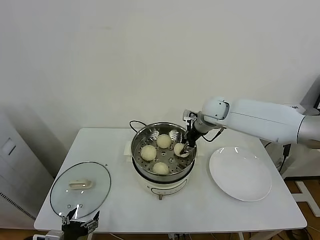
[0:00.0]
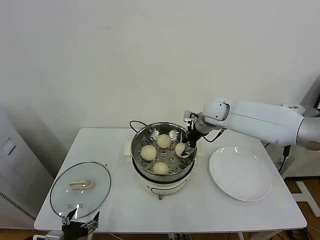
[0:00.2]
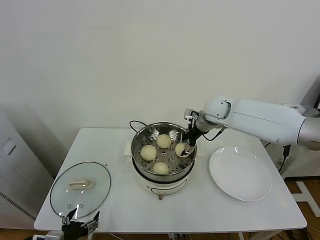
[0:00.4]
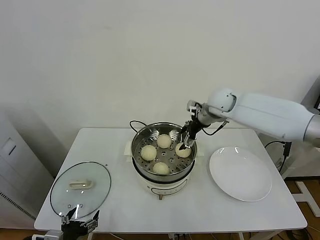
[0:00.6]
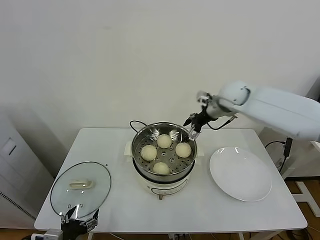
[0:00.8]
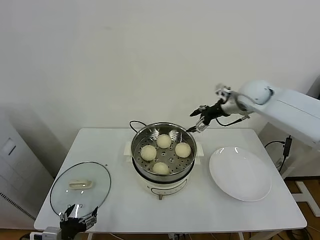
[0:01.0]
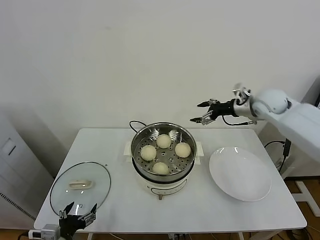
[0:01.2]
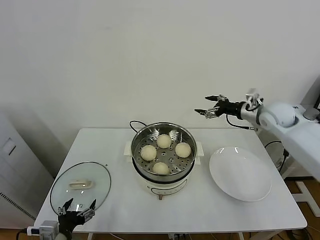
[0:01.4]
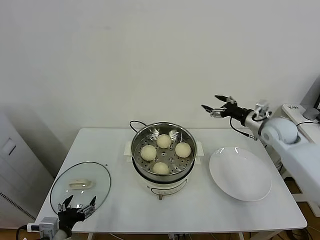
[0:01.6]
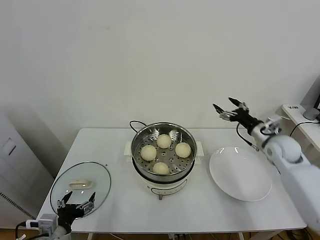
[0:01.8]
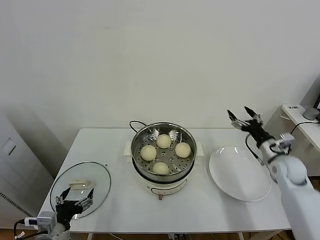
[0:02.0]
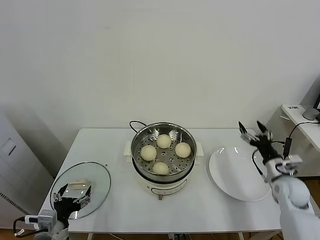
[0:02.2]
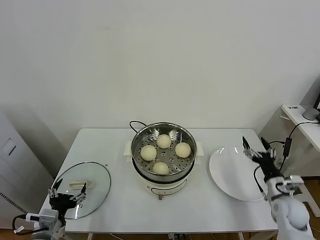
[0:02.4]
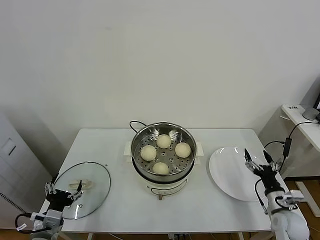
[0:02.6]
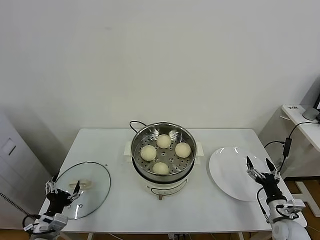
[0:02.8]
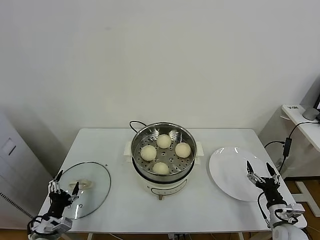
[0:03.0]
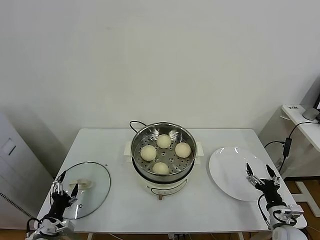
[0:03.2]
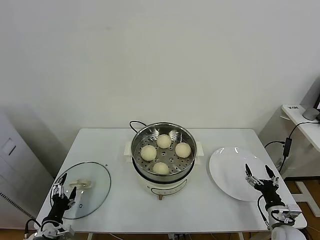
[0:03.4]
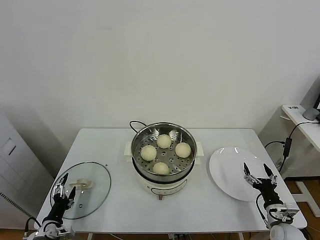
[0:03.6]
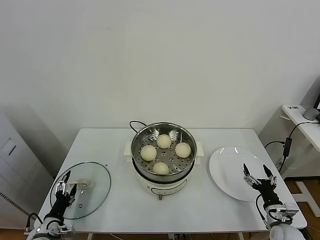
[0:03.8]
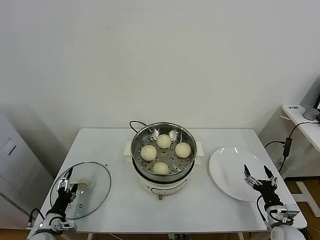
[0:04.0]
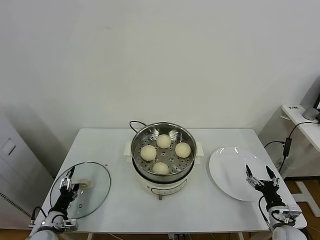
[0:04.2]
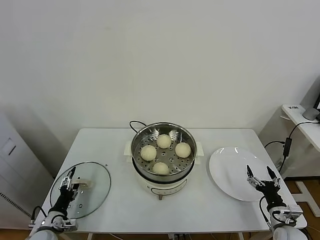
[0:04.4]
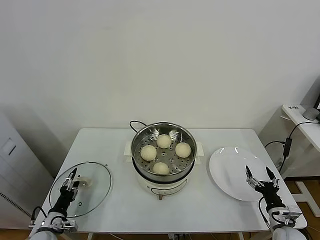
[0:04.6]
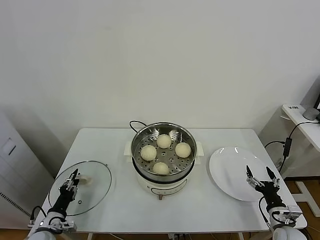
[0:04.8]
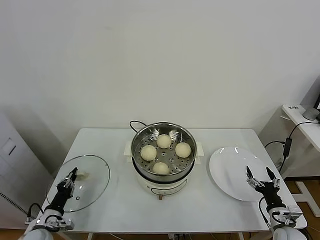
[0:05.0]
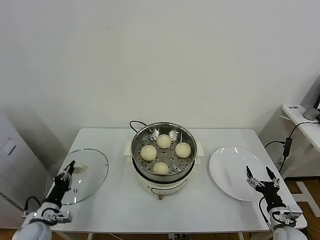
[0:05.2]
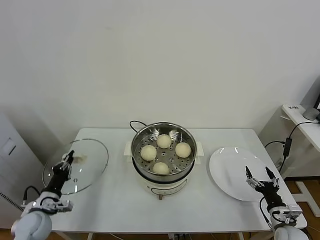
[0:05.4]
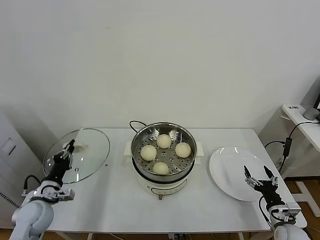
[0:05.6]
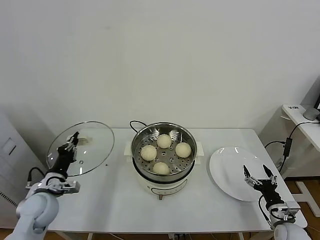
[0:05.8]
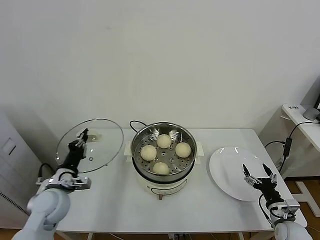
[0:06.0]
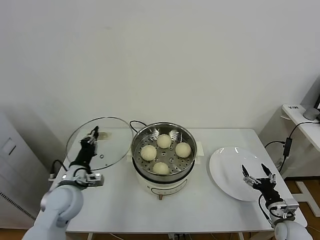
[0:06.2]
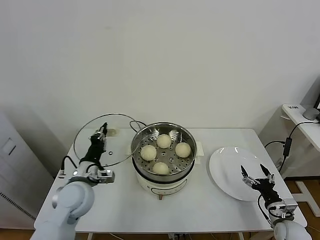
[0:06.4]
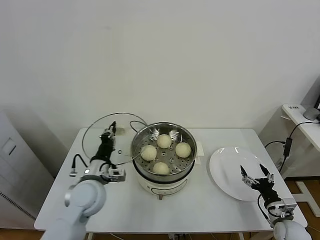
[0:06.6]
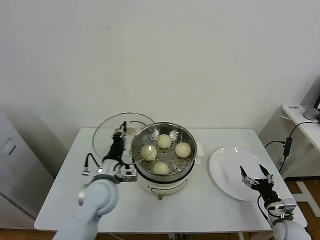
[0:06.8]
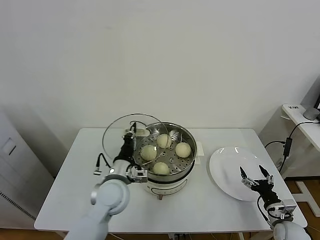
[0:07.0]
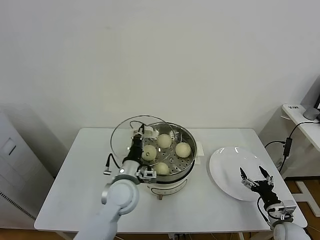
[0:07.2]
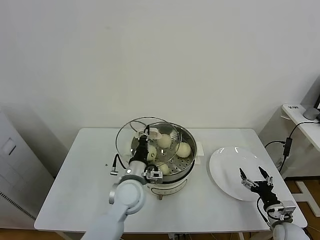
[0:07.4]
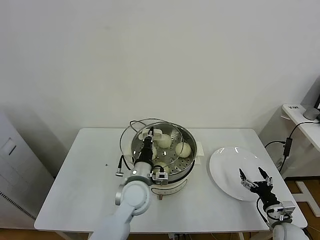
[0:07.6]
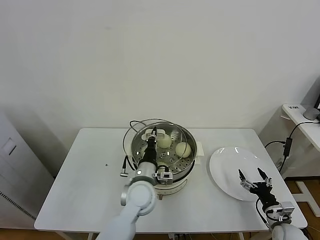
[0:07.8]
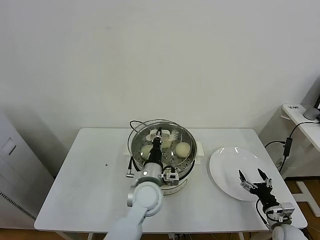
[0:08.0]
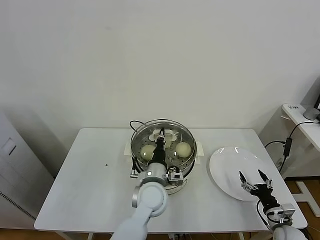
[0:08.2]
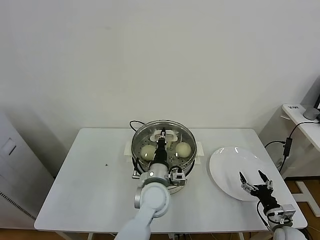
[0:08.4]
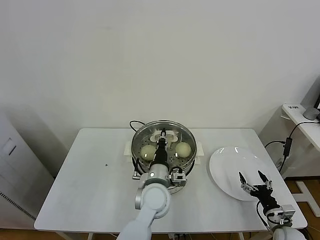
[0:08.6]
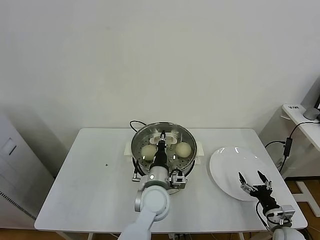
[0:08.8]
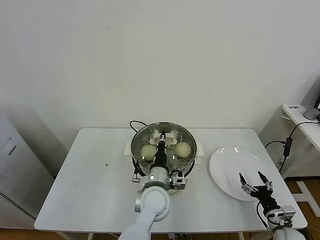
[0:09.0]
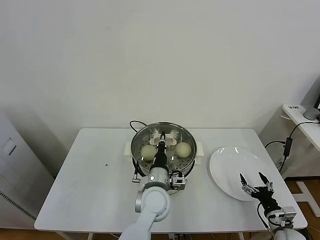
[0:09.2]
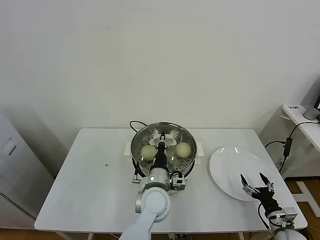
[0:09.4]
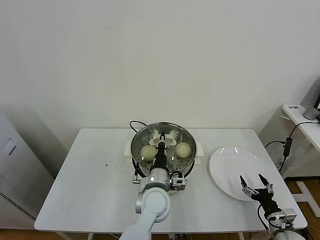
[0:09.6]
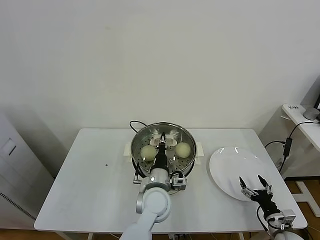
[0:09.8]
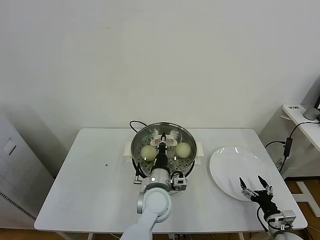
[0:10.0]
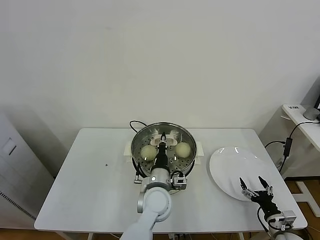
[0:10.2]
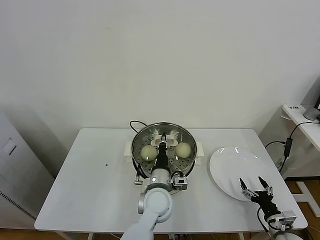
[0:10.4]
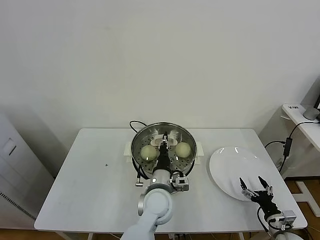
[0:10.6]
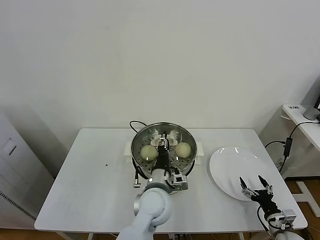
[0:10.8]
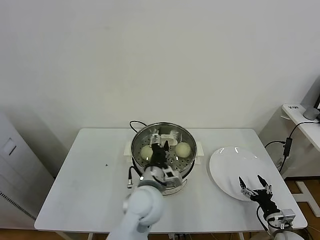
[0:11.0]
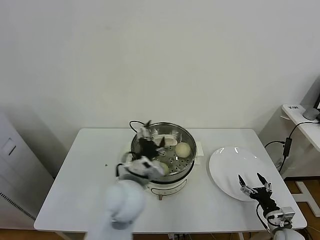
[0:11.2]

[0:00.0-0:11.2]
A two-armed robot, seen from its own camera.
Task of the whole recording: take steamed baozi put them in steamer.
Step, 0:01.0 to 0:05.2: Grasp the pot lid with left gripper.
Step, 0:05.4 to 0:11.2: Place the pot lid on the steamer with left gripper.
0:00.0 to 0:01.6: The right gripper shifts about 20 cm to the right, and opens.
0:01.6 to 0:03.2: The right gripper heads downward and backward, covering roughly 35 cm; the left gripper goes approximately 10 cm downward and to the left.
0:03.2 to 0:04.8: The left gripper ends up approximately 5 cm from where it was, and closes up.
0:04.8 to 0:06.4: The left gripper goes about 25 cm upward, to the right and forward, and closes up.
0:06.4 to 0:08.0: The left gripper is displaced to the right by approximately 20 cm.
0:08.0 to 0:09.6: There are only small adjustments of the grippers.
0:09.6 to 0:11.2: The left gripper goes approximately 10 cm upward and to the left, and opens up.

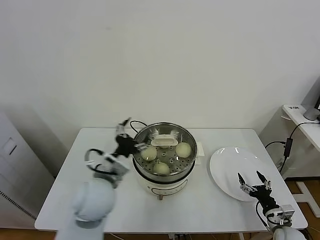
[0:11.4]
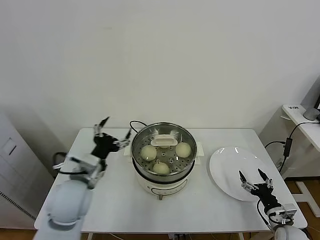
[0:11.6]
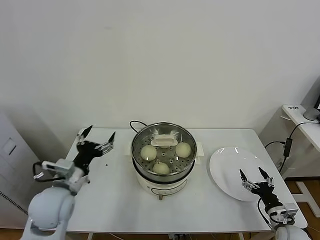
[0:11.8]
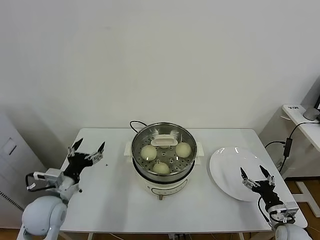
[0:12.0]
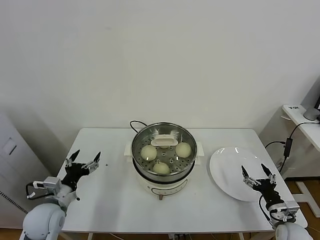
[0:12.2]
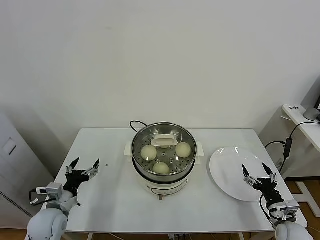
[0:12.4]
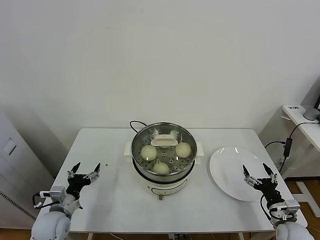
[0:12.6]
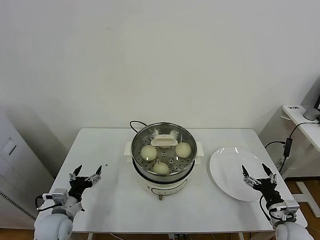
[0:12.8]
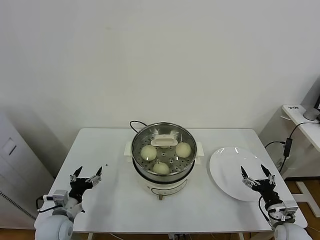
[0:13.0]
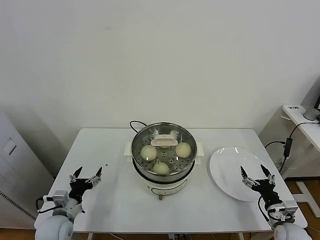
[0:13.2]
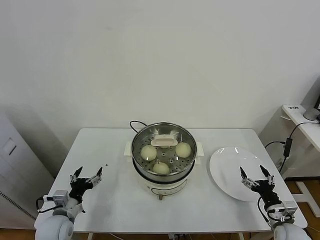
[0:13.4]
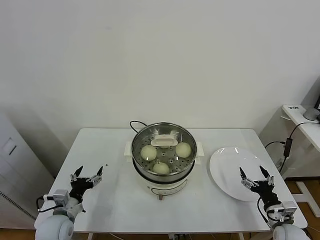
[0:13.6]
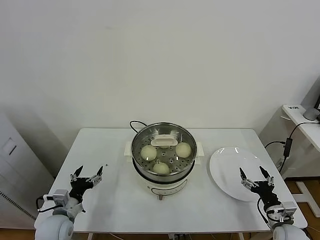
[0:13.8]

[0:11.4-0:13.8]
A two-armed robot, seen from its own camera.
Task of the whole recording: take steamed baozi put them in steamer.
0:11.4 to 0:12.6: The left gripper heads to the left and downward, covering some 25 cm.
0:12.6 to 0:13.8: The grippers stay close to where they were, moving slightly.

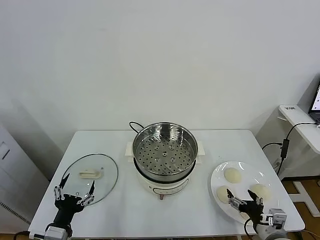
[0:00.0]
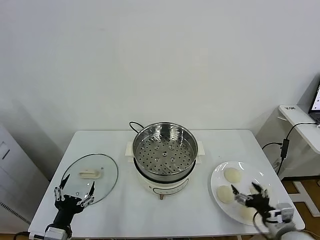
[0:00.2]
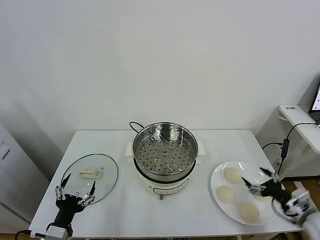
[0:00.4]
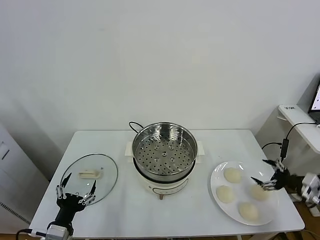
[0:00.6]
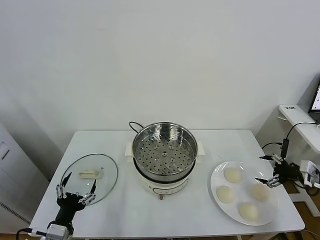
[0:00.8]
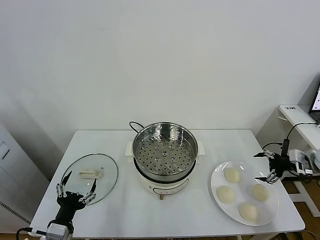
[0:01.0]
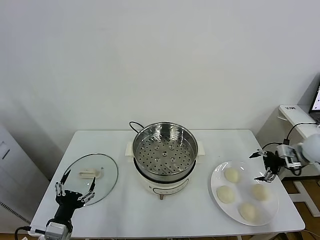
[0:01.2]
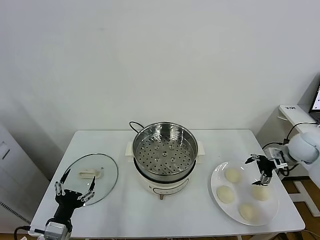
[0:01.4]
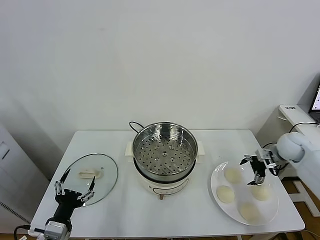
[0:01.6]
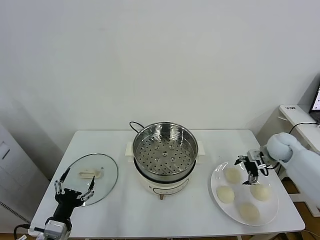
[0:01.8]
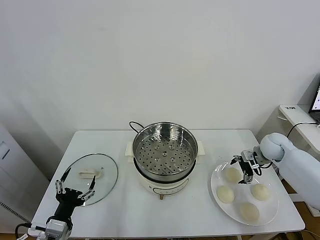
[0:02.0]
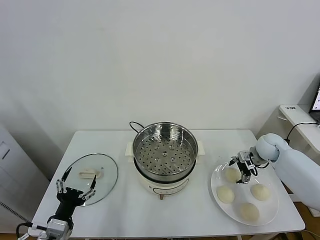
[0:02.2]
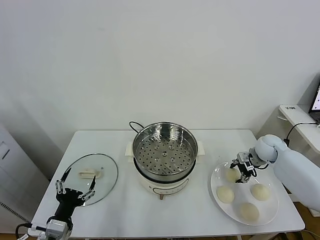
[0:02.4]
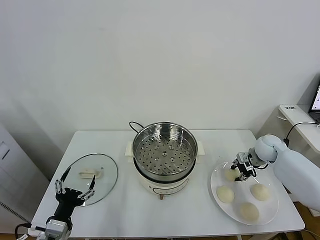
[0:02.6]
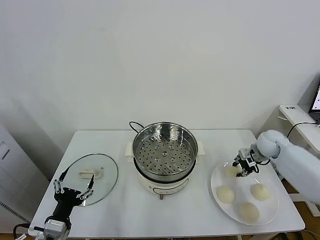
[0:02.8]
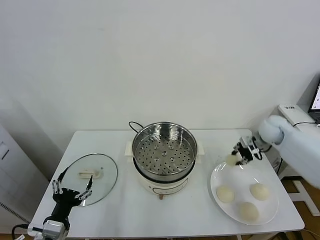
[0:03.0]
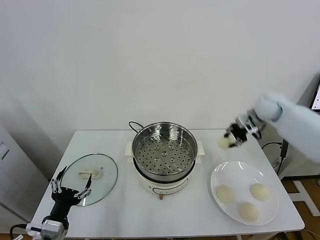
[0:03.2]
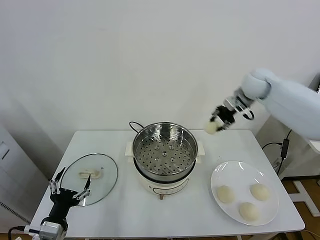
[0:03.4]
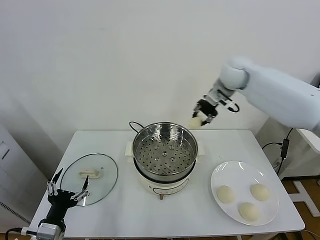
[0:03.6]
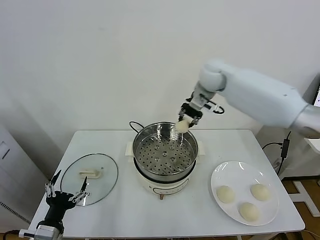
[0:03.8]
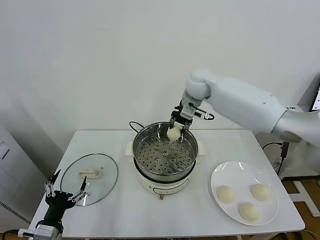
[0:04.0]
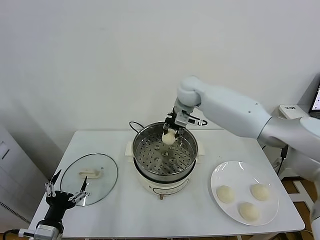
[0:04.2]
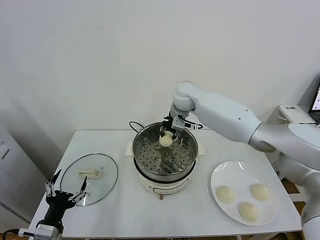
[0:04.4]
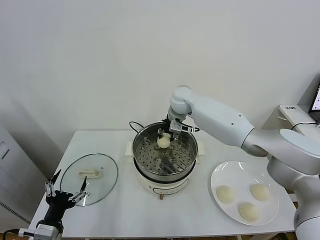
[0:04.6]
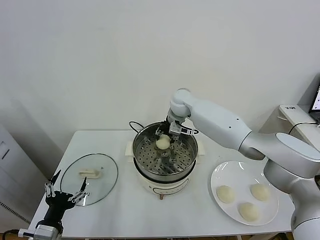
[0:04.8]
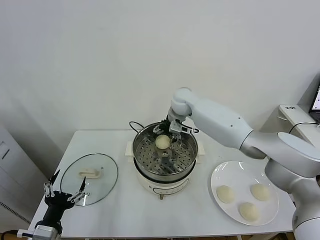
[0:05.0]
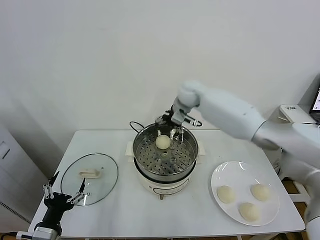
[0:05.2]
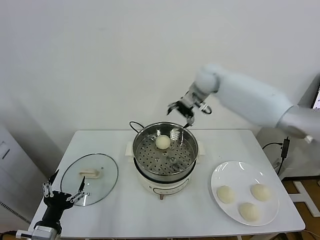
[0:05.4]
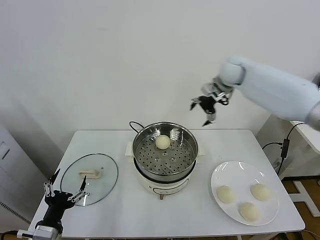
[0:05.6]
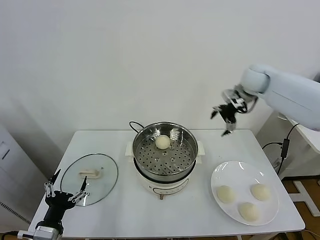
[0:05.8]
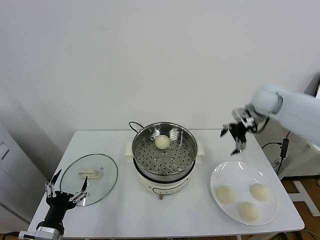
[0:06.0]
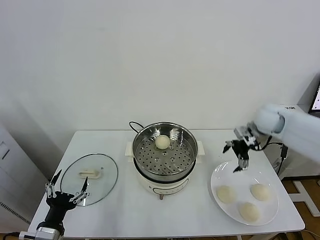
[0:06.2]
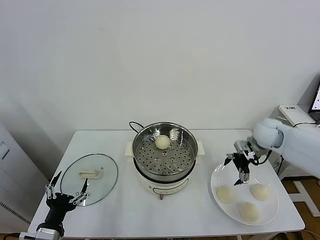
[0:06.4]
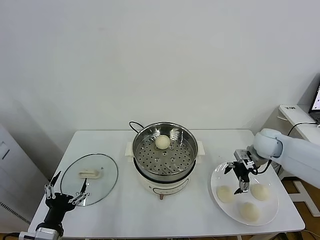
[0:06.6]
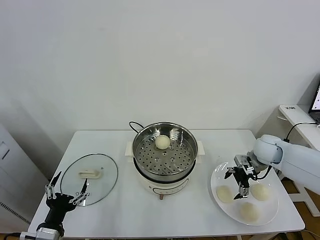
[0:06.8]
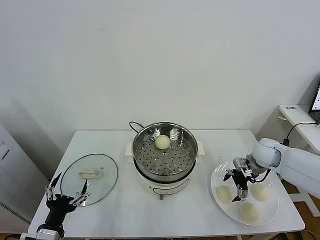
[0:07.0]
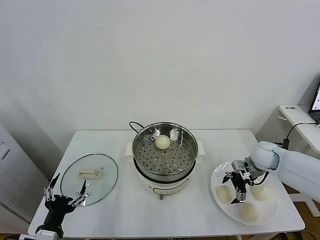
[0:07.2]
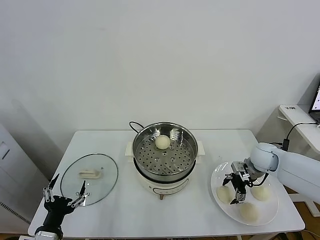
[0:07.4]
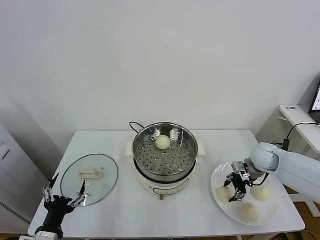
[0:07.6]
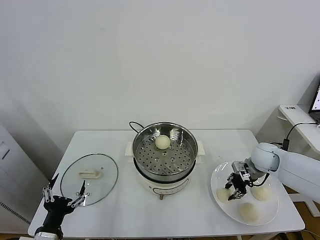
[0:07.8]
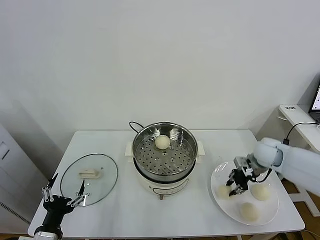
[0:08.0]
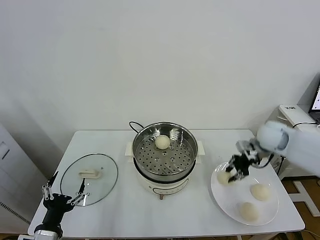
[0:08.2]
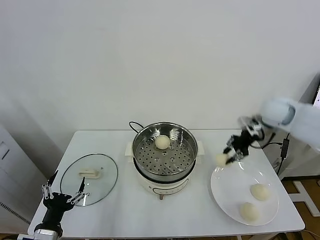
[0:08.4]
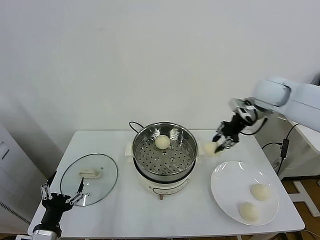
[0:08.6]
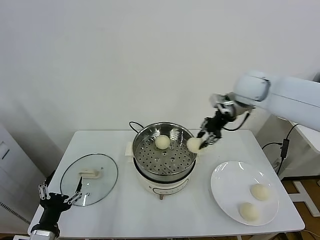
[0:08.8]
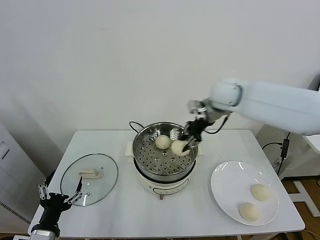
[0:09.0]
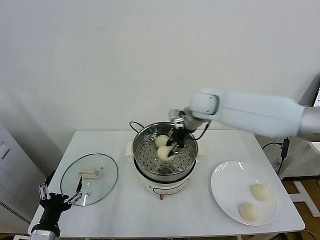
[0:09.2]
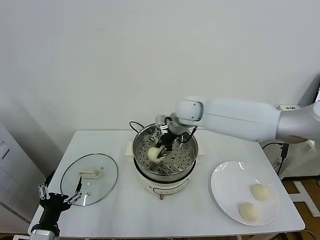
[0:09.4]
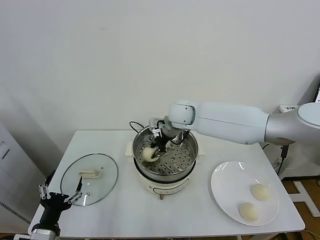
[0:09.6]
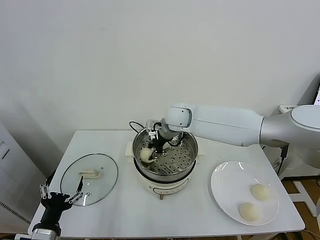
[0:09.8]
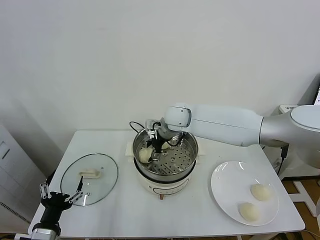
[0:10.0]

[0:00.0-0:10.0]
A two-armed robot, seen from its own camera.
Task of the whole recording: take steamed baozi put them in steamer.
Step, 0:00.0 to 0:02.2: Grasp the baozi in the plate with right gripper.
Step, 0:02.4 to 0:05.0: Place the baozi on the steamer with right gripper.
Step, 0:05.2 to 0:07.4: Grasp the baozi in the plate with right gripper.
0:01.4 to 0:02.8: The right gripper goes about 10 cm to the left and forward, and closes up.
0:02.8 to 0:04.2: The right gripper moves to the left and upward, roughly 35 cm.
0:04.2 to 0:05.8: The right gripper moves to the right, roughly 20 cm, and opens up.
0:05.8 to 0:07.2: The right gripper goes some 25 cm downward and backward.
0:07.2 to 0:08.6: The right gripper travels upward by approximately 25 cm, and closes its fingers.
0:08.6 to 0:10.0: The right gripper heads to the left and downward, covering some 30 cm, and opens up.
